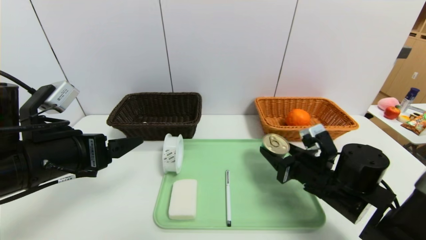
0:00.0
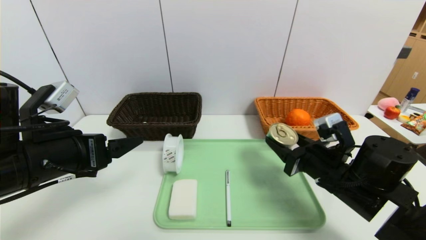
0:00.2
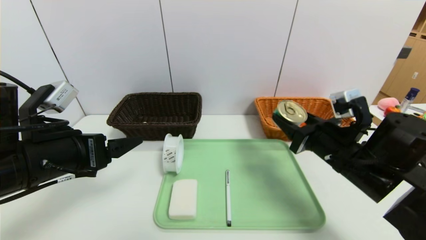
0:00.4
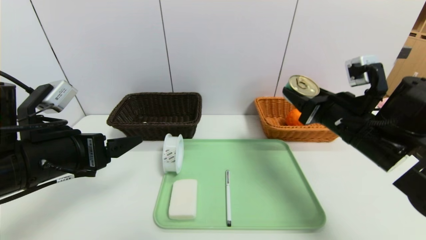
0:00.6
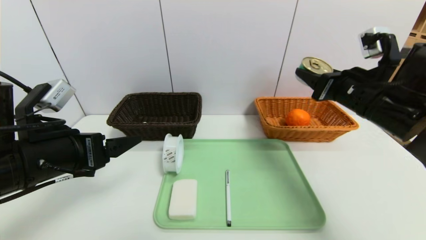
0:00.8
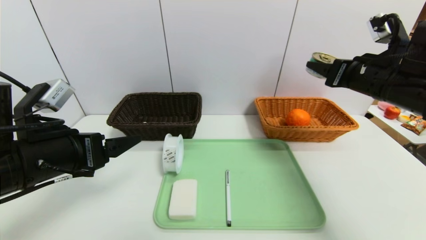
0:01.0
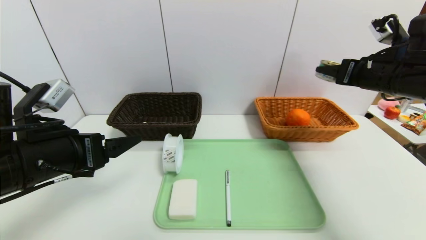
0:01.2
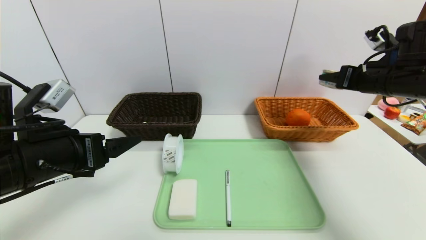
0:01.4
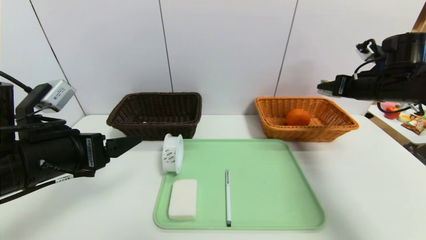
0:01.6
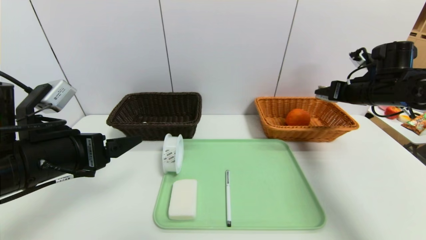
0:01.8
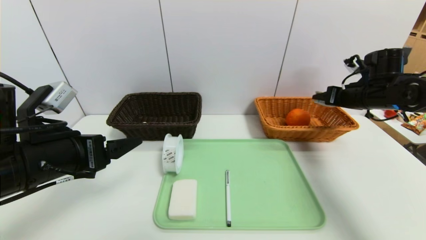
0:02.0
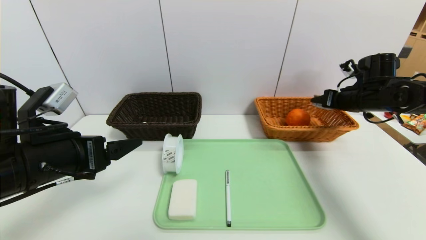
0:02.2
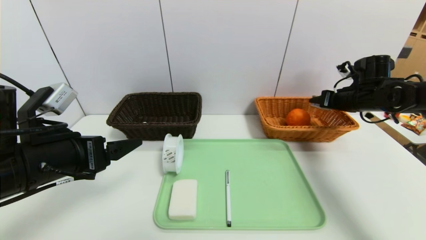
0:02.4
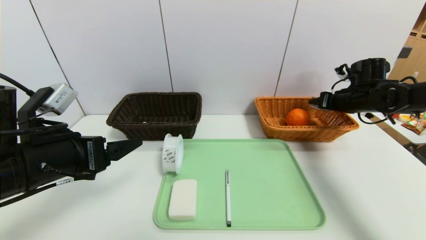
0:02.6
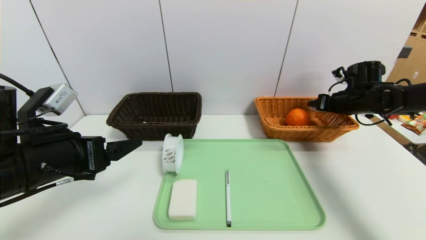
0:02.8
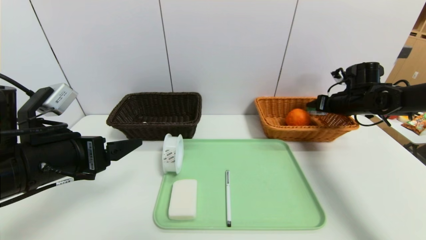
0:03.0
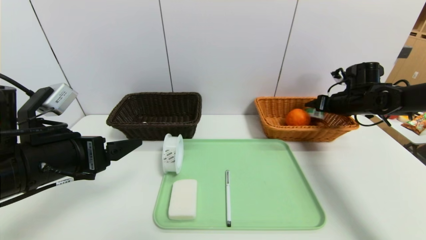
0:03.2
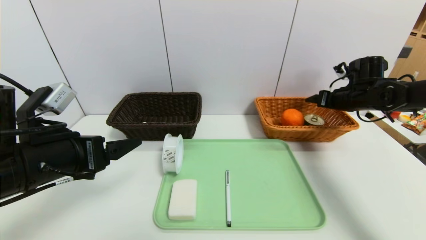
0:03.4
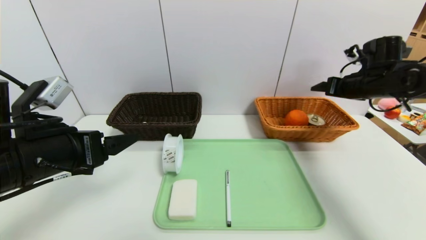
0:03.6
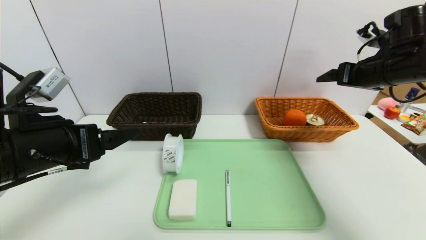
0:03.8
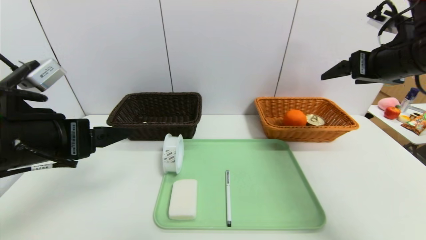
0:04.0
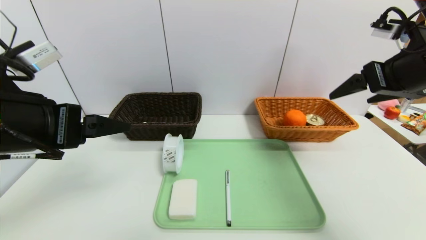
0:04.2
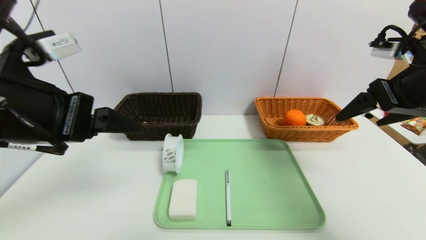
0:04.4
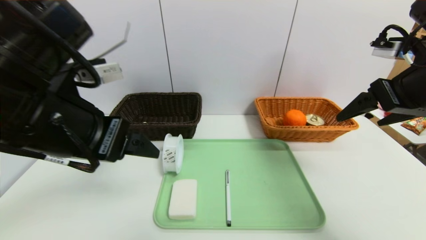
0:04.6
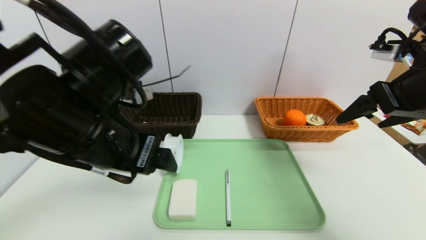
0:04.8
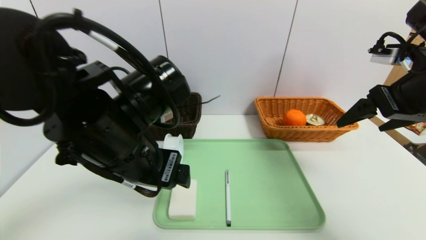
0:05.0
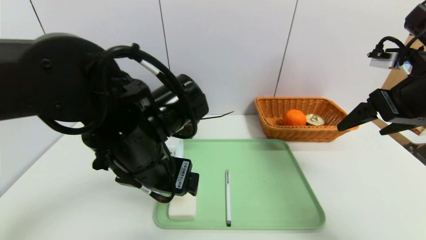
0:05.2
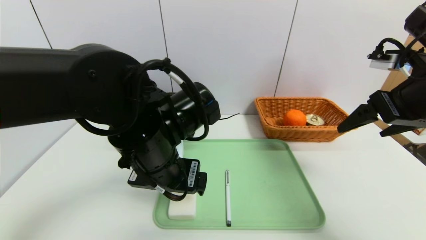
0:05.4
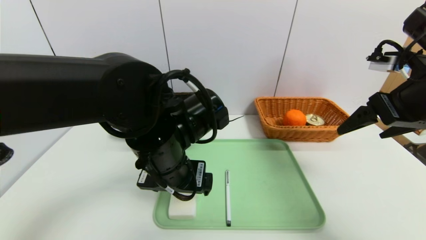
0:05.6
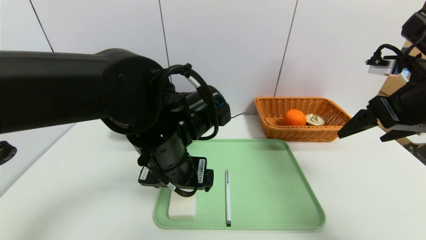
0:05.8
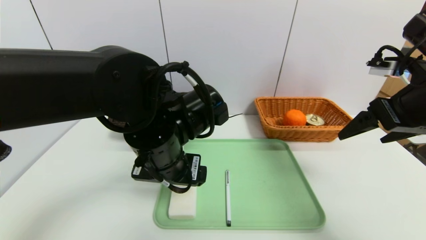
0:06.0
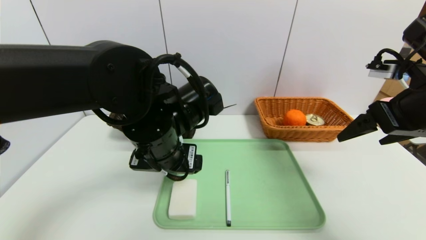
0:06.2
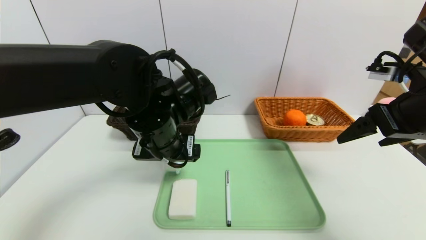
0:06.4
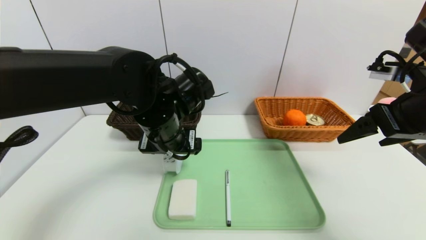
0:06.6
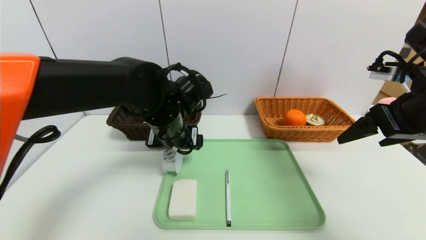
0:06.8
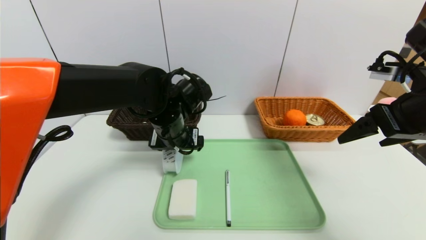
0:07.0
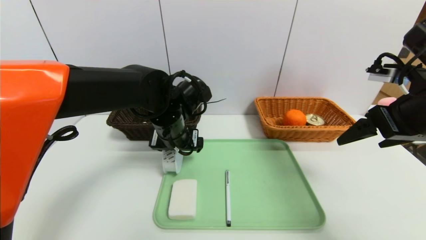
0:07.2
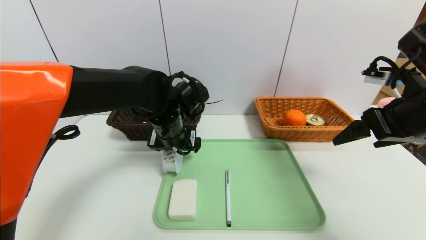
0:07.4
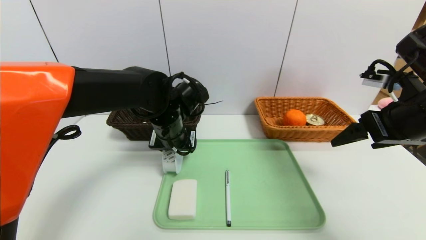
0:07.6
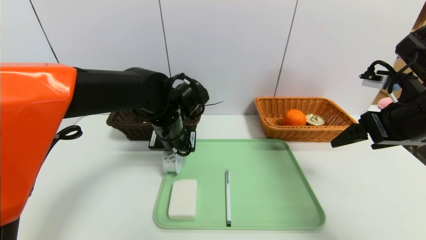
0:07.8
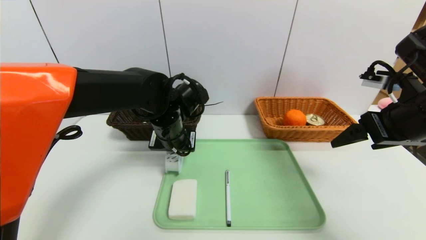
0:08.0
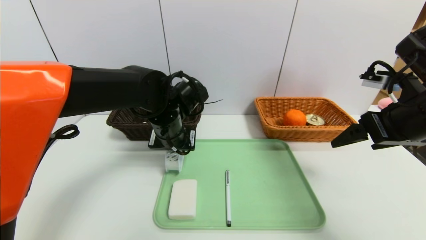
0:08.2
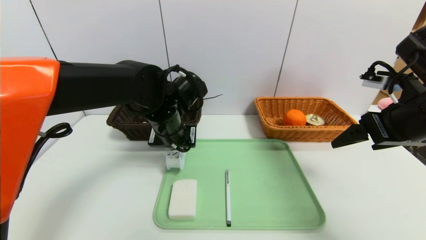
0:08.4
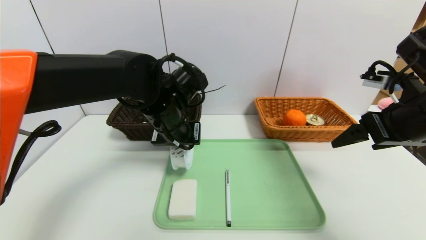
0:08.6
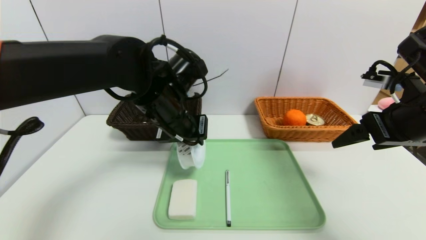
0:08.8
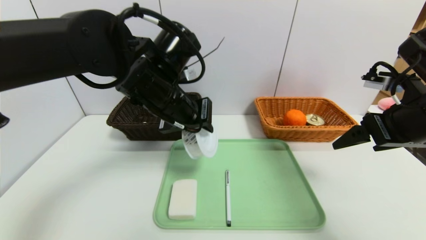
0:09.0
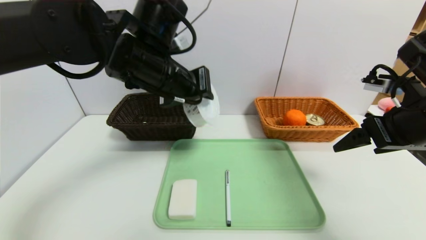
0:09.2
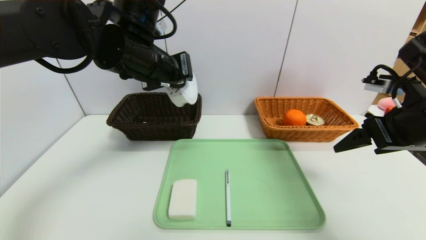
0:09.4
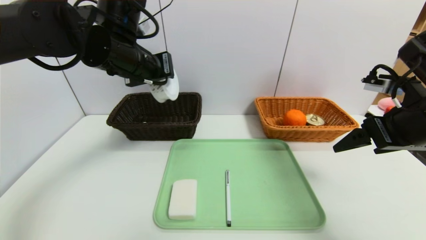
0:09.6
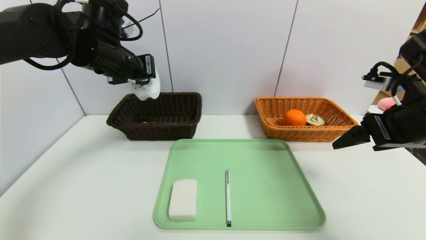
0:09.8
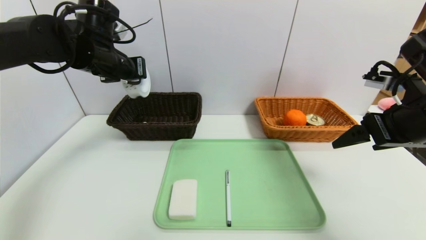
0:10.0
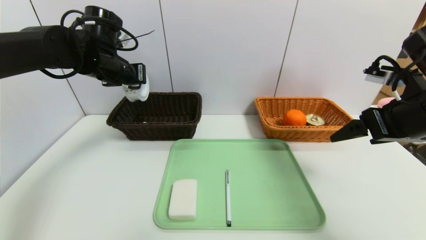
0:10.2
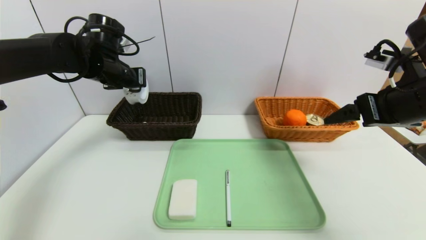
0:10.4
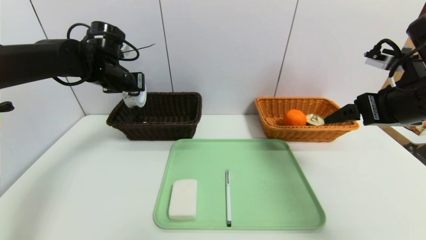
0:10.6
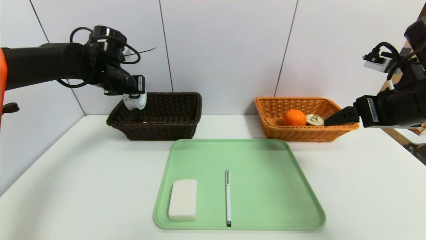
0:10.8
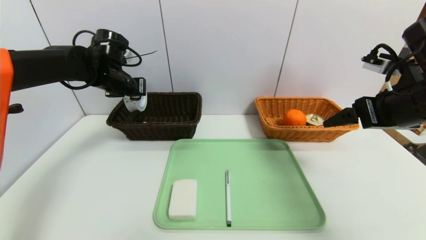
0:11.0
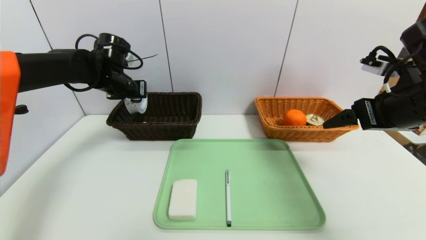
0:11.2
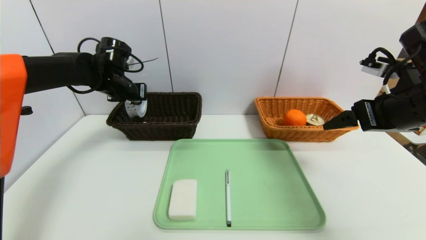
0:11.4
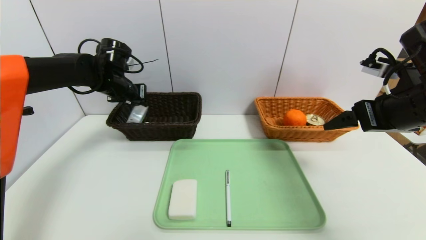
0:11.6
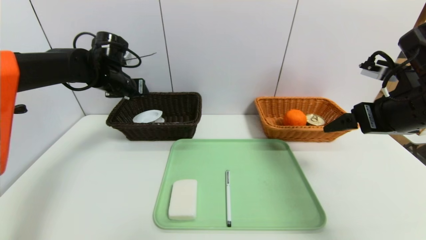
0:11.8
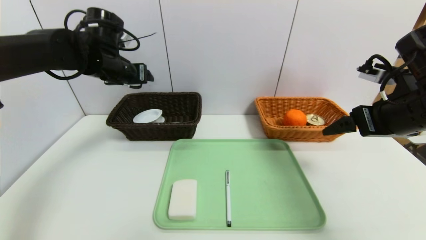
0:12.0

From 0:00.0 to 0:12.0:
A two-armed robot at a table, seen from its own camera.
Task of the whole recording: place the food in the right basket with the right gripper, and place the non food items in the left basket with the left gripper.
Step, from 0:00.0 to 0:03.2: Grasp the can and put it in the right basket.
Step, from 0:03.4 to 0:11.8: Grasp the tape and put it in the left basket.
From 0:00.0 to 0:01.6: The right gripper travels upward, to the right and forward by some 25 cm.
From 0:01.6 to 0:03.0: The right gripper moves forward and downward, about 10 cm.
From 0:03.0 to 0:04.4: The right gripper is displaced backward and upward by about 25 cm; the left gripper travels upward by some 10 cm.
From 0:04.4 to 0:06.0: The left gripper heads to the right, downward and forward, covering some 20 cm.
From 0:06.0 to 0:07.6: The left gripper moves forward, some 10 cm.
From 0:07.6 to 0:09.0: The left gripper goes approximately 10 cm upward, and closes its fingers.
From 0:09.0 to 0:10.4: The left gripper goes about 20 cm to the left and forward.
From 0:10.4 to 0:12.0: The left gripper opens.

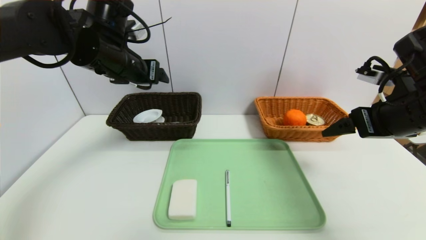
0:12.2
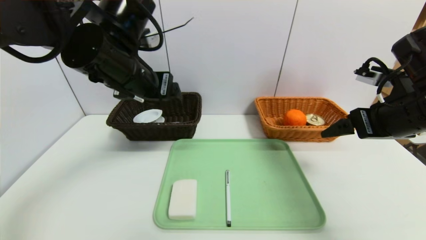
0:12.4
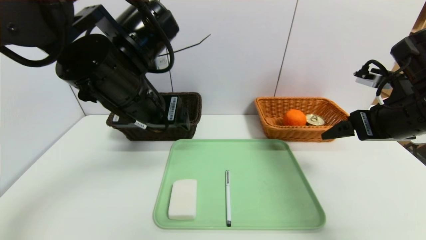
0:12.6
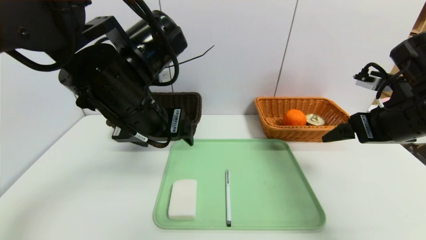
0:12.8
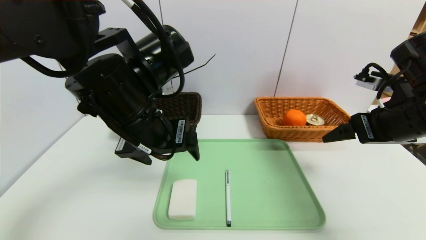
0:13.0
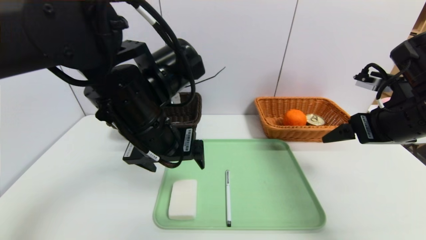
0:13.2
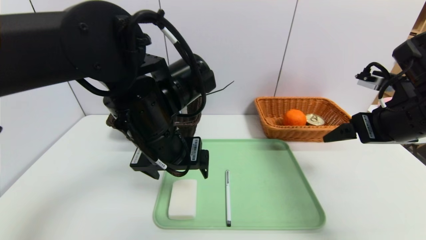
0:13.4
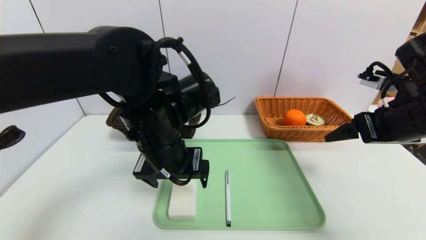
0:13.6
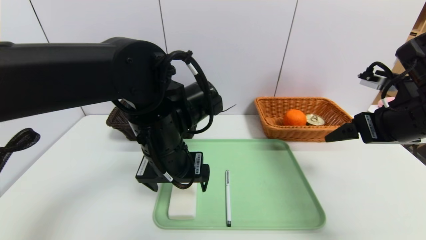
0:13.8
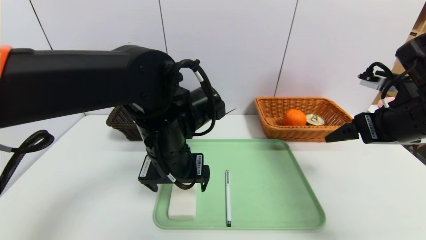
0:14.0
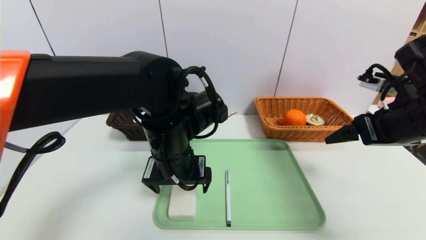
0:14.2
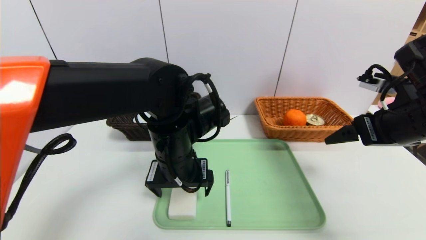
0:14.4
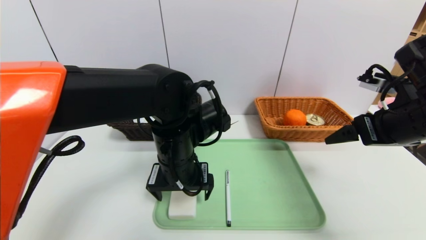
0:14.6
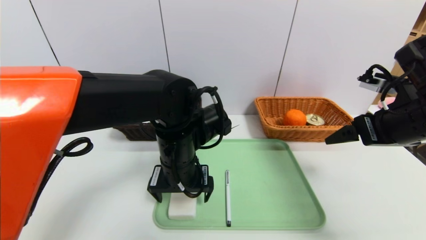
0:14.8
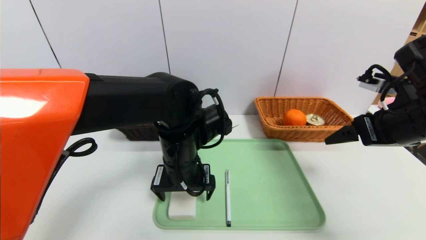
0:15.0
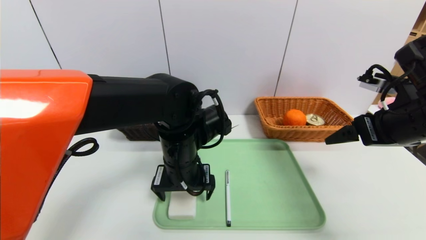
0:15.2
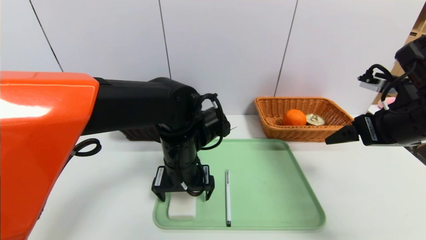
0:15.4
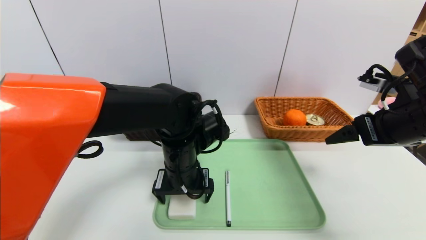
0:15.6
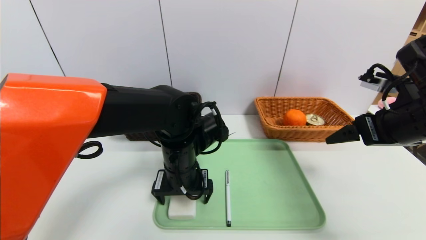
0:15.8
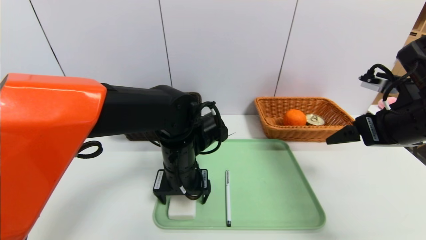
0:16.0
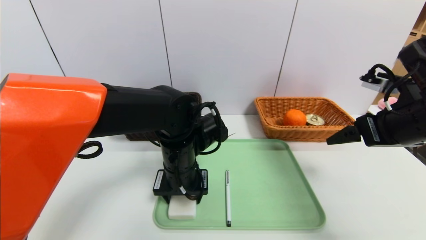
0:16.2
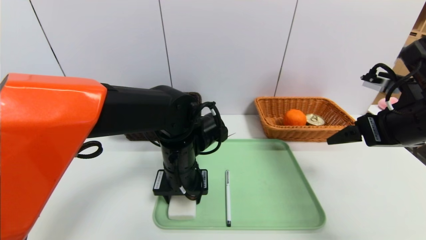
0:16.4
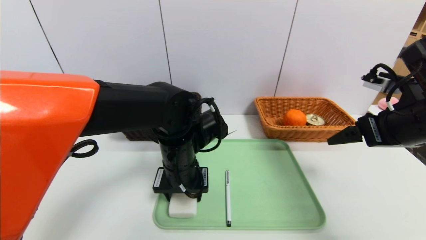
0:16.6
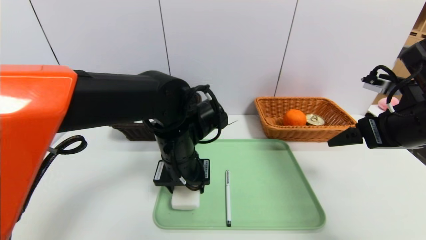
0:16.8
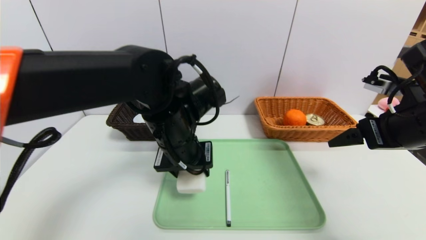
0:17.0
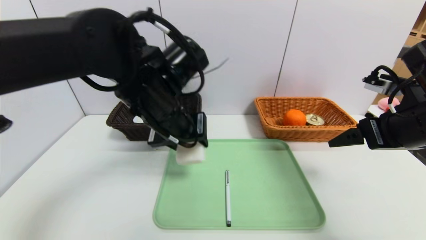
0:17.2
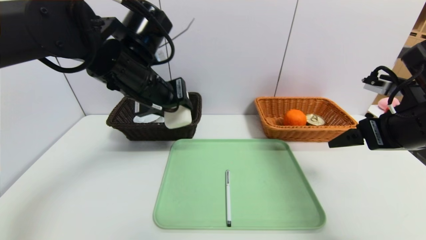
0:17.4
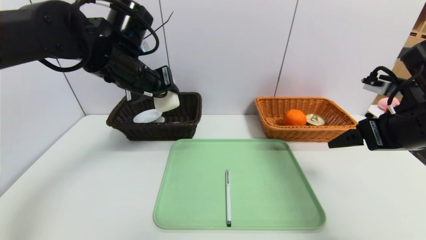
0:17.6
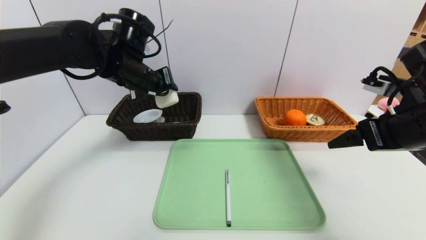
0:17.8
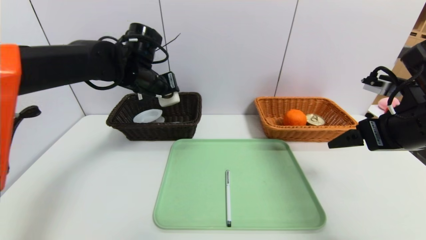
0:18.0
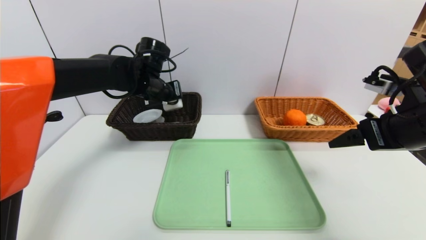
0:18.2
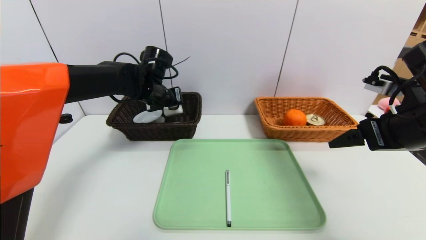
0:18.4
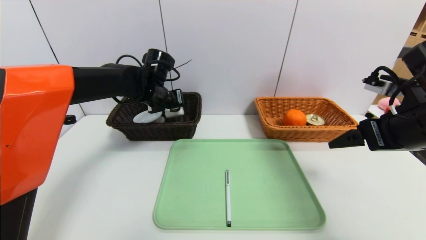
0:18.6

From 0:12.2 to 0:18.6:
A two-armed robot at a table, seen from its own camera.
Task of the whole recording: place the food in the right basket with the right gripper, and place the non food items in the left basket with the left gripper.
From 0:12.2 to 0:13.8: The left gripper goes some 15 cm to the right, backward and downward.
From 0:13.8 to 0:15.4: The left gripper travels downward by about 5 cm.
From 0:15.4 to 0:17.0: The left gripper is displaced upward by about 5 cm, and closes up.
From 0:17.0 to 0:18.6: The left gripper shifts roughly 20 cm forward and to the left.
